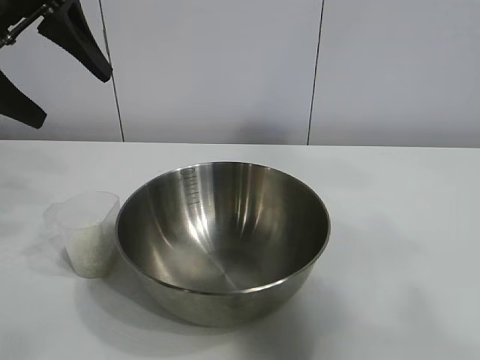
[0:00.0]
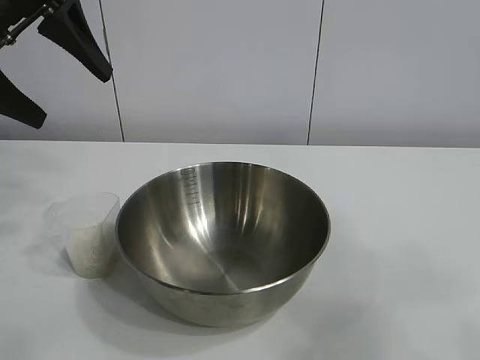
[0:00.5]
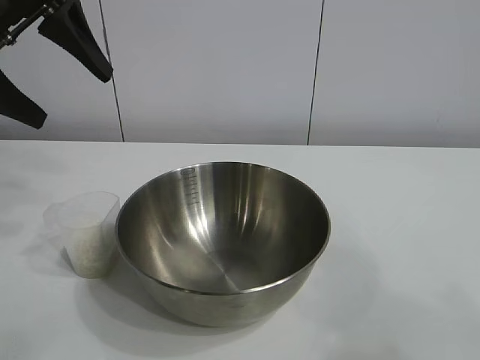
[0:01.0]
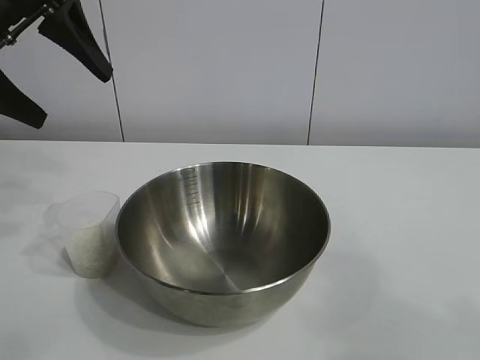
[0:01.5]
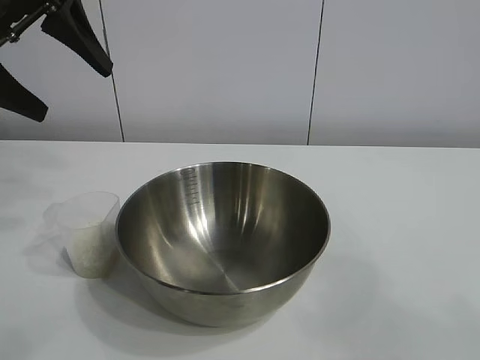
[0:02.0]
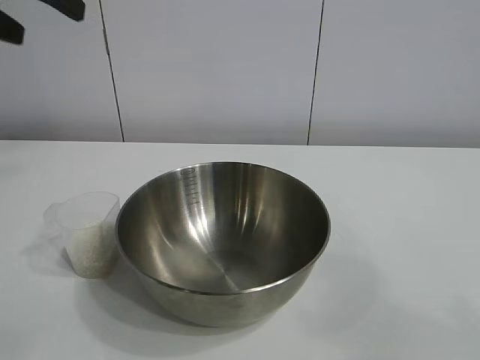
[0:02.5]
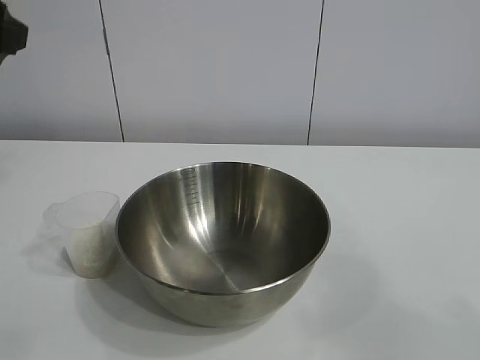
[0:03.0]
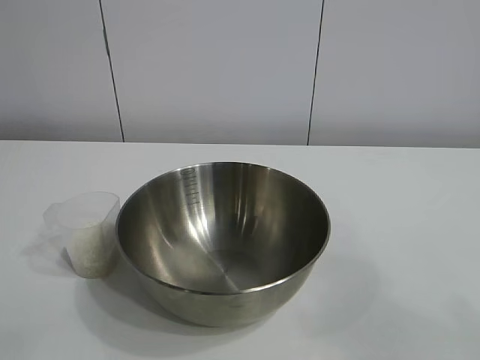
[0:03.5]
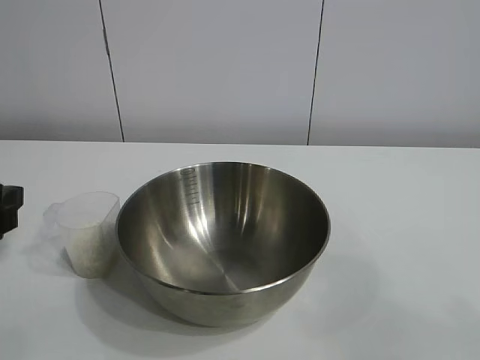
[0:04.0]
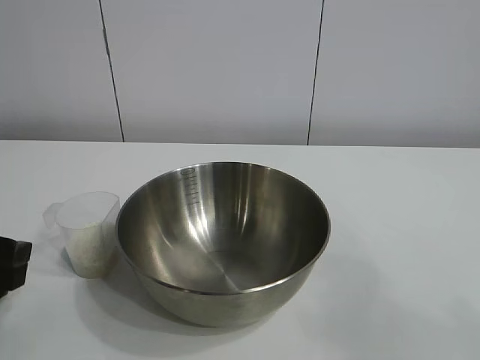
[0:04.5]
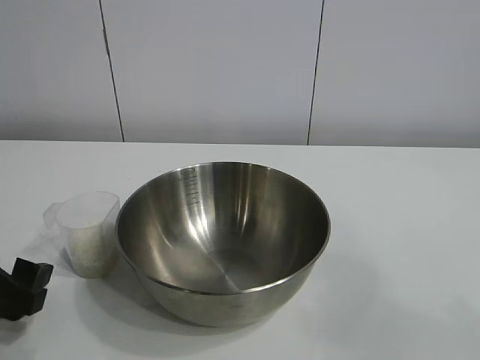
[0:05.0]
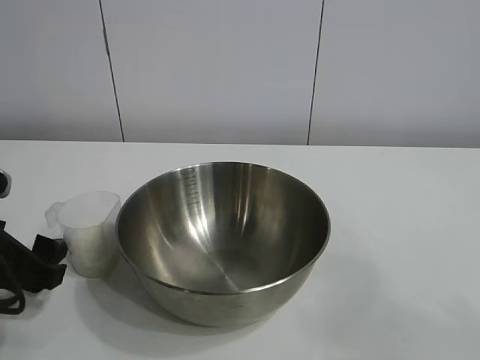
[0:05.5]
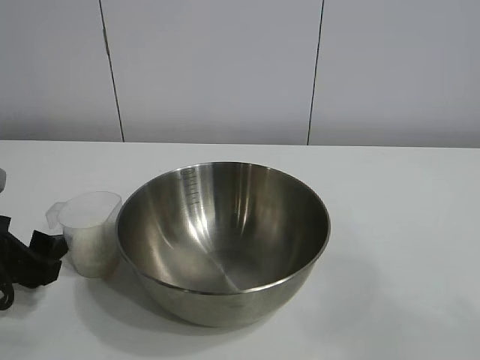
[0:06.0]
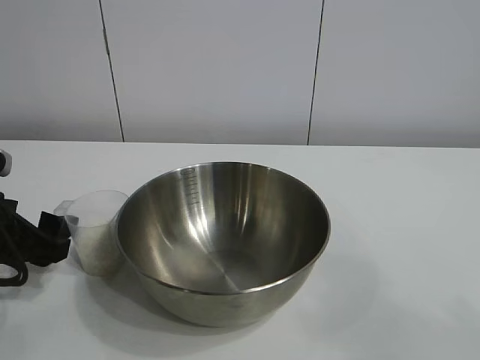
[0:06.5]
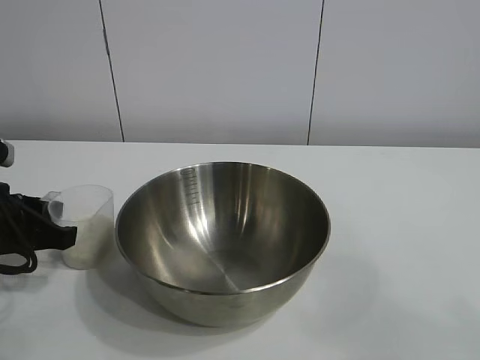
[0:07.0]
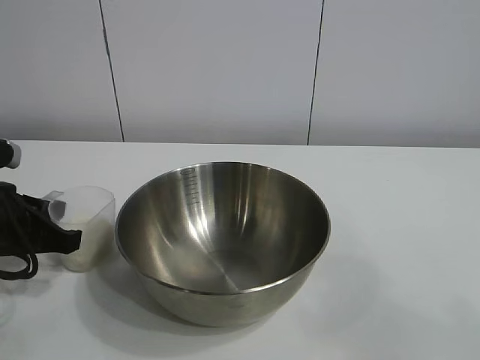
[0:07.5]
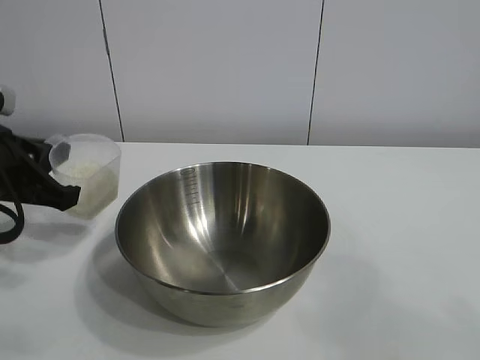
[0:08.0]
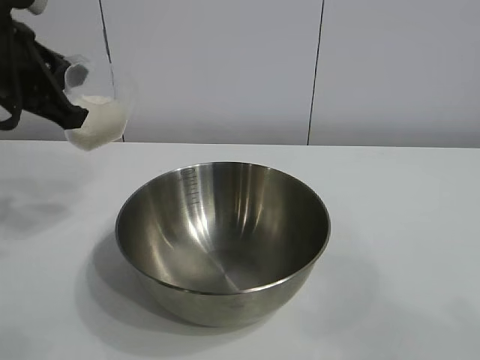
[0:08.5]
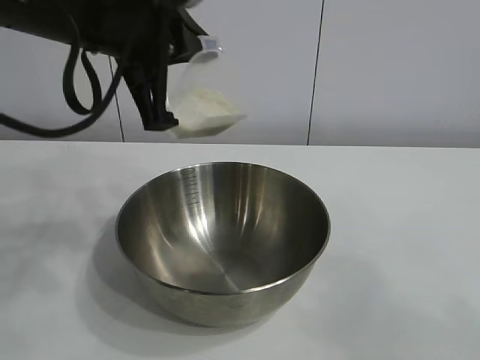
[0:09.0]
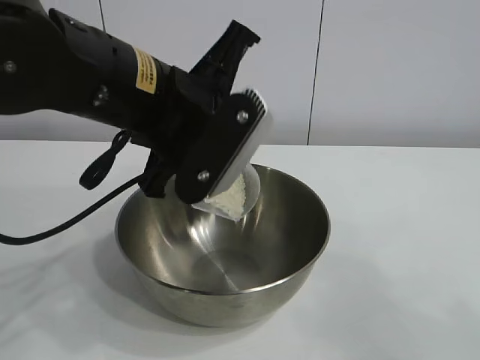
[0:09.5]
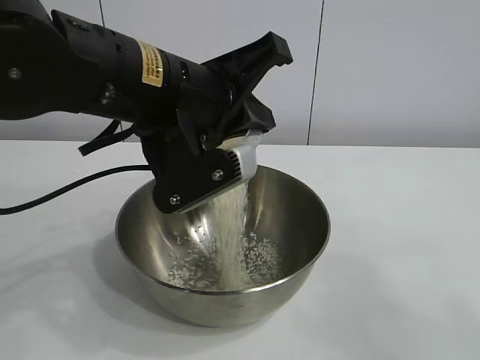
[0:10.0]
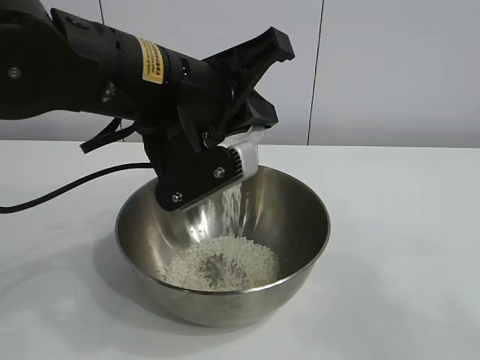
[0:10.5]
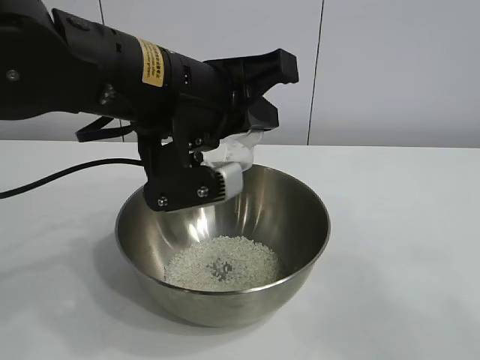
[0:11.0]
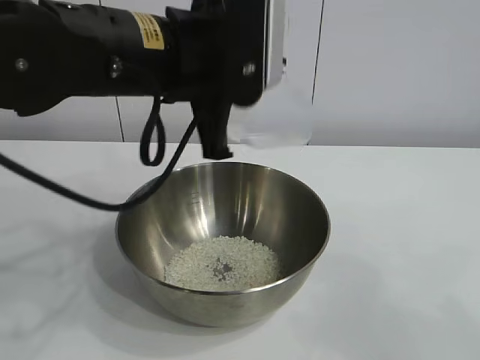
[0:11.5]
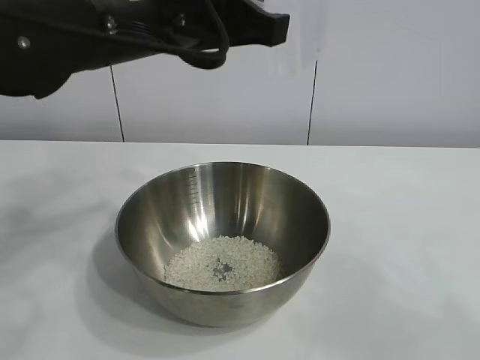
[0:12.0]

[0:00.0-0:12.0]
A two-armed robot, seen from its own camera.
Task of the whole recording: the right gripper grasp the rice container and place it in the center of the table, the left gripper grasp the rice scoop and pour the rice into the rice container.
Step, 0:00.0 to 0:07.0: Grasp the cup with rice in it with left gripper.
Step, 0:07.5 to 0:11.0: Pour the rice from the cup into the bowl with the left gripper.

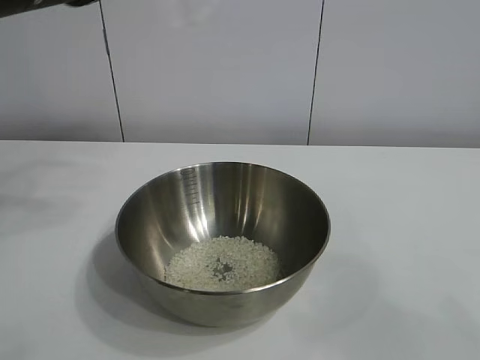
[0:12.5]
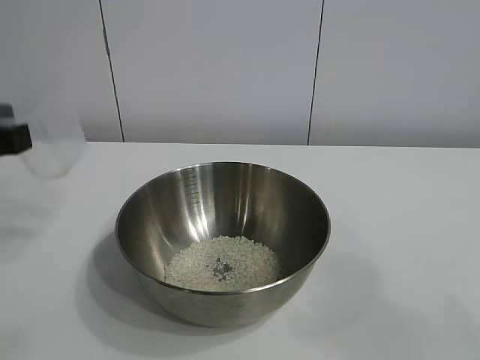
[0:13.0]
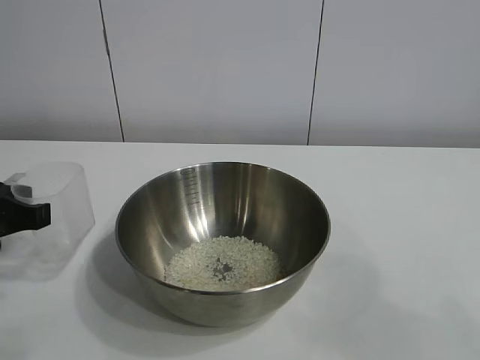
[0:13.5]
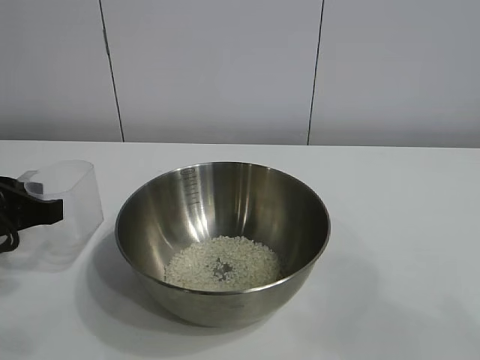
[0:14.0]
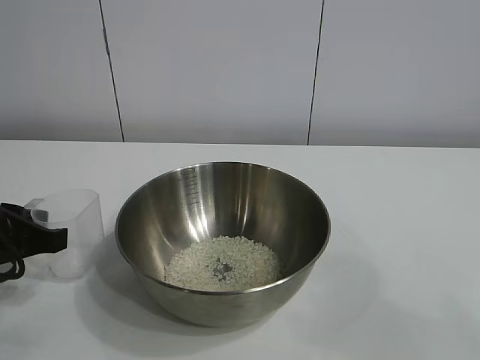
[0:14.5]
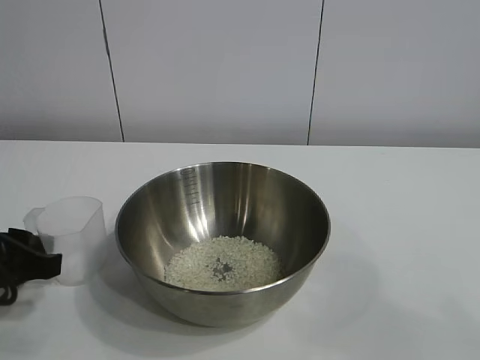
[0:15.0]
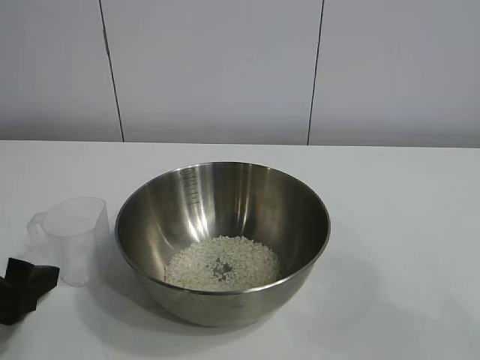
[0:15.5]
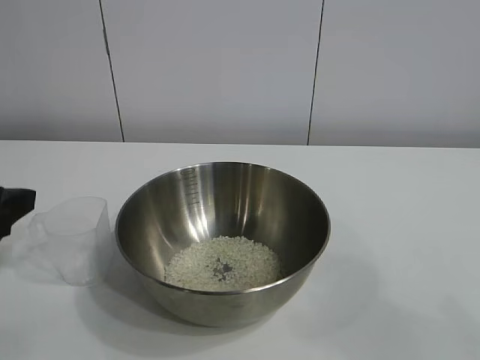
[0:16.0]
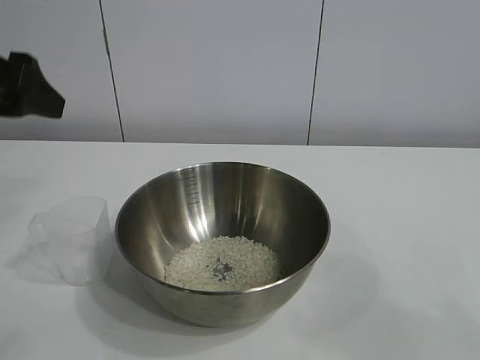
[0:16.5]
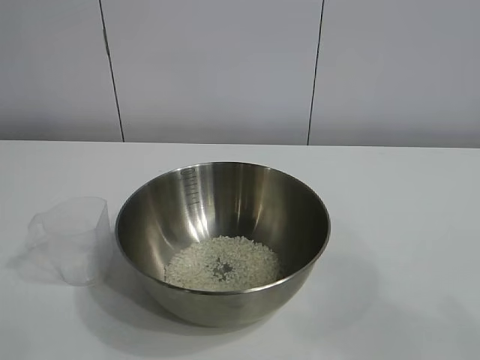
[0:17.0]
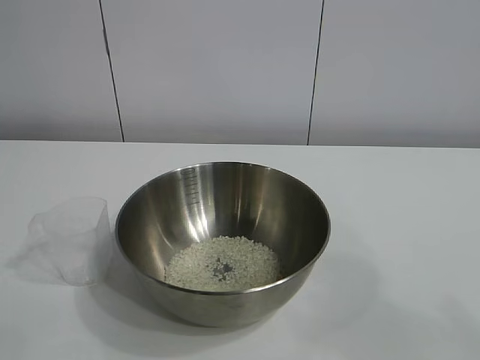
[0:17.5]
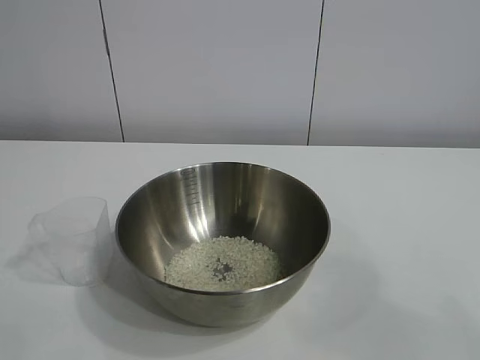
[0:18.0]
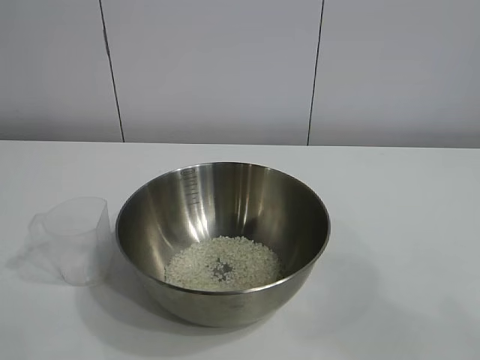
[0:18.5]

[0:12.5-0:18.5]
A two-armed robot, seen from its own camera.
Task of the whole recording: the right gripper grasp the rice container and place it in the center of the table, the left gripper grasp the rice scoop and pour the rice into the rice container.
Step, 0:12.5 to 0:15.0: Place the cup on the table with the left gripper.
